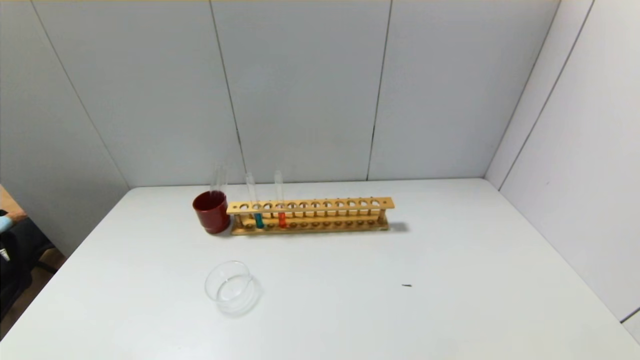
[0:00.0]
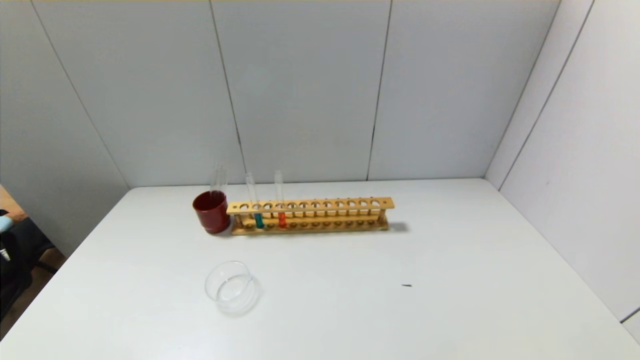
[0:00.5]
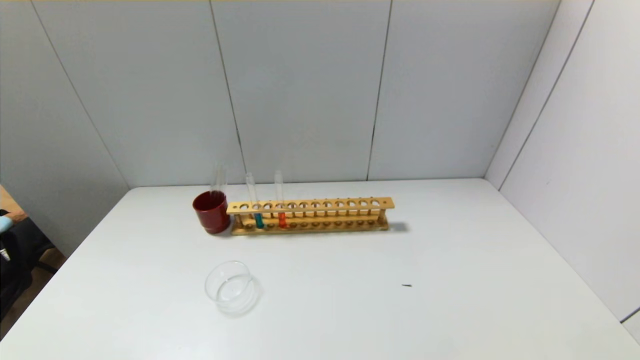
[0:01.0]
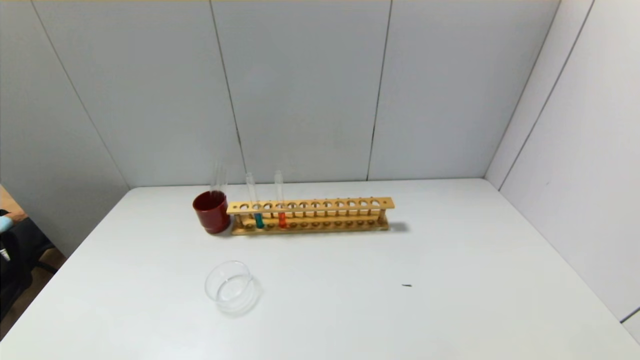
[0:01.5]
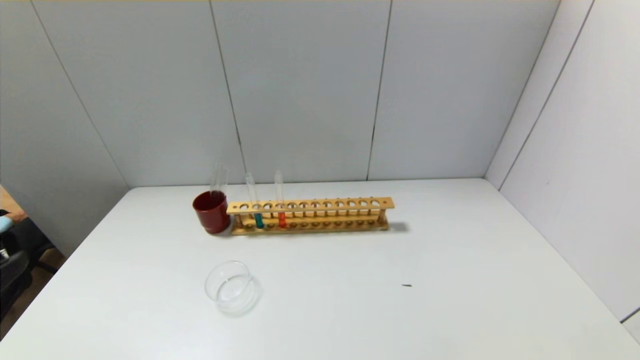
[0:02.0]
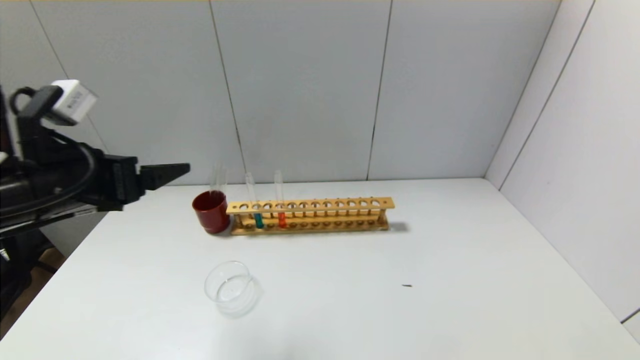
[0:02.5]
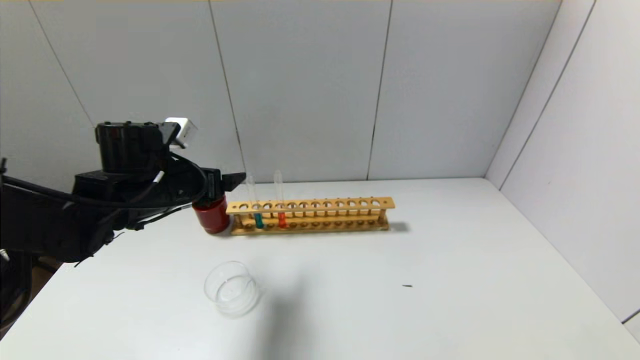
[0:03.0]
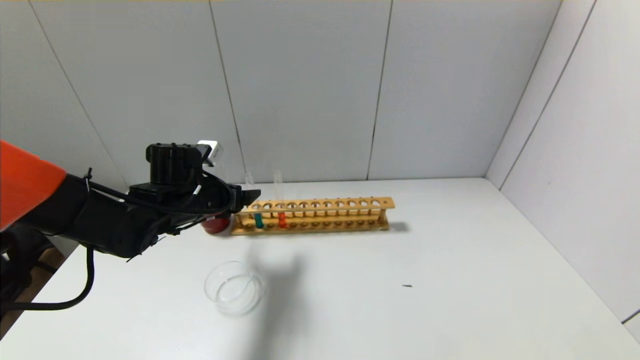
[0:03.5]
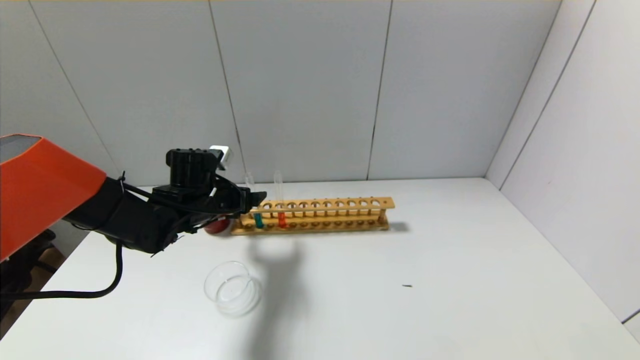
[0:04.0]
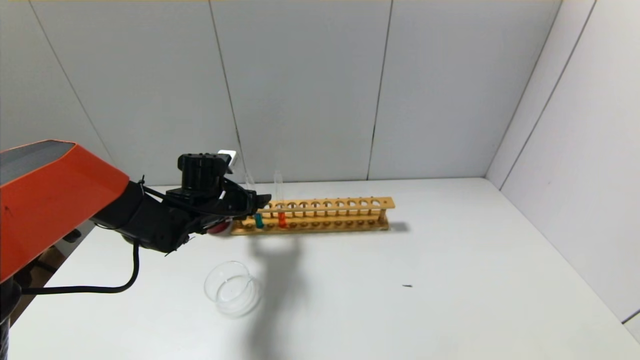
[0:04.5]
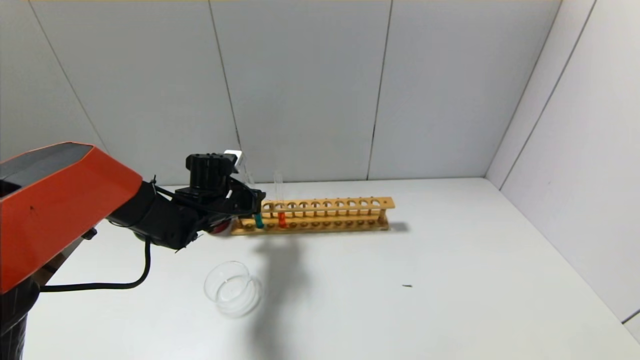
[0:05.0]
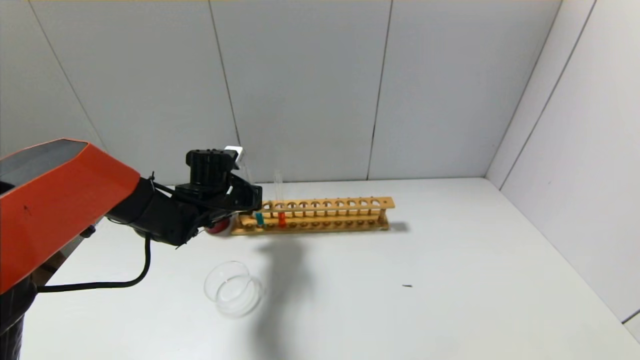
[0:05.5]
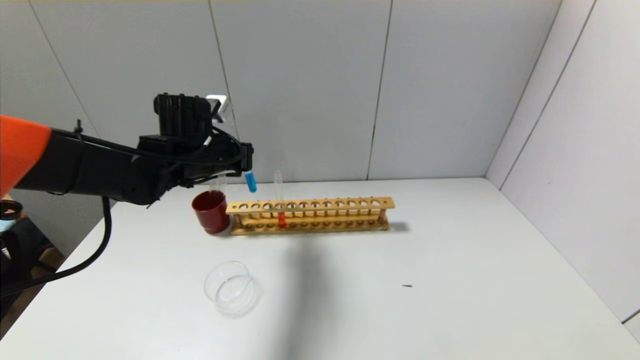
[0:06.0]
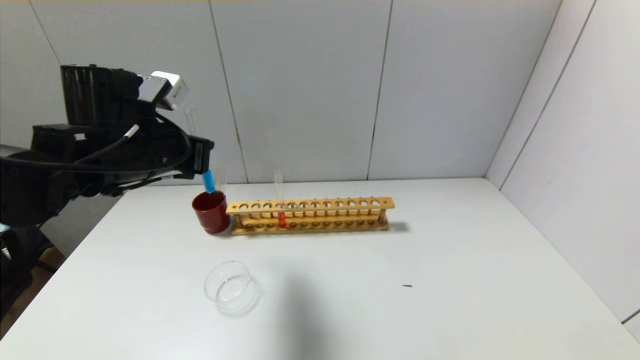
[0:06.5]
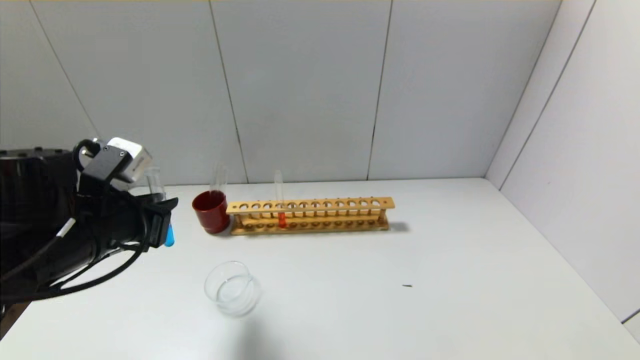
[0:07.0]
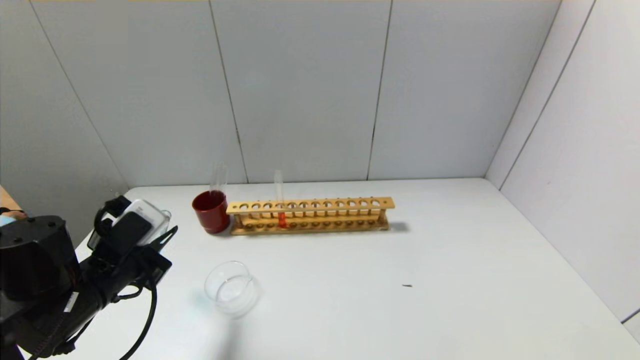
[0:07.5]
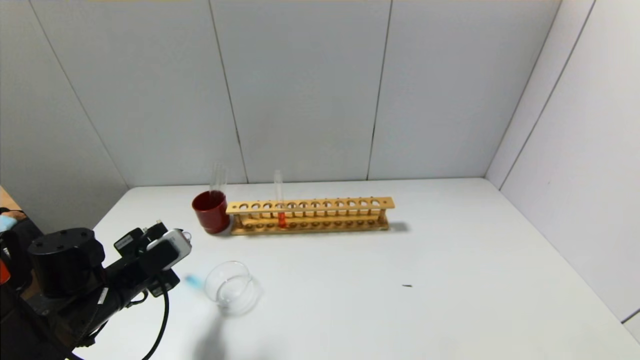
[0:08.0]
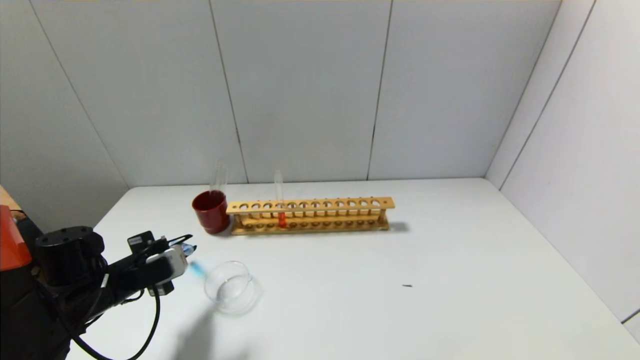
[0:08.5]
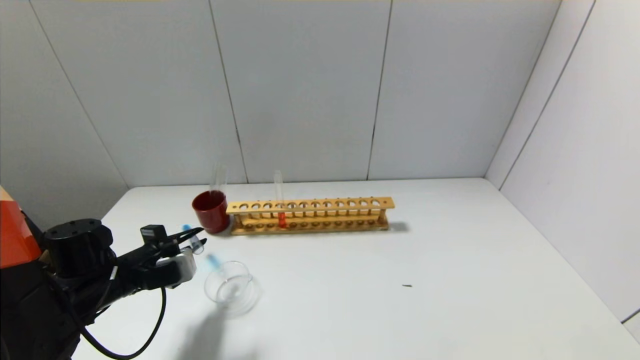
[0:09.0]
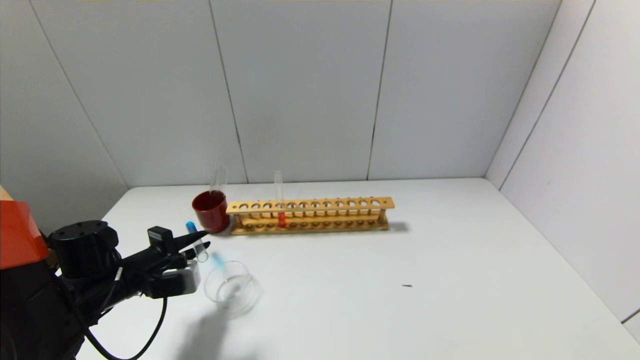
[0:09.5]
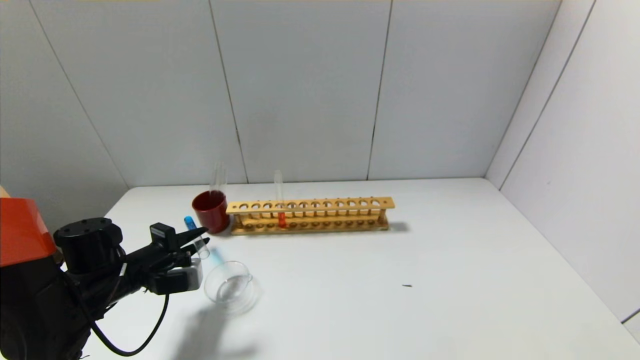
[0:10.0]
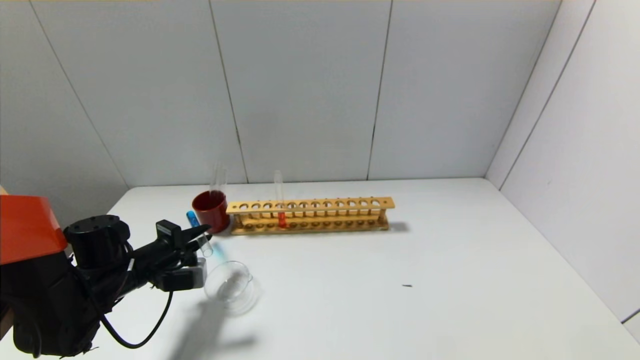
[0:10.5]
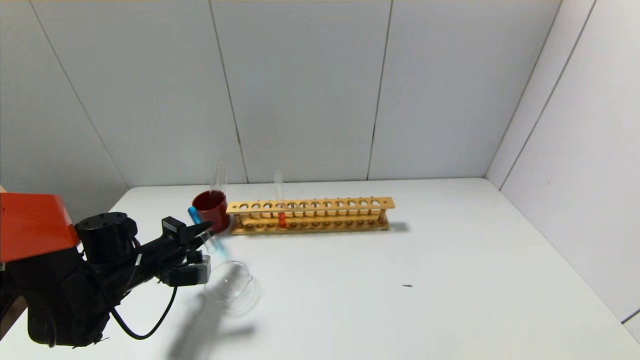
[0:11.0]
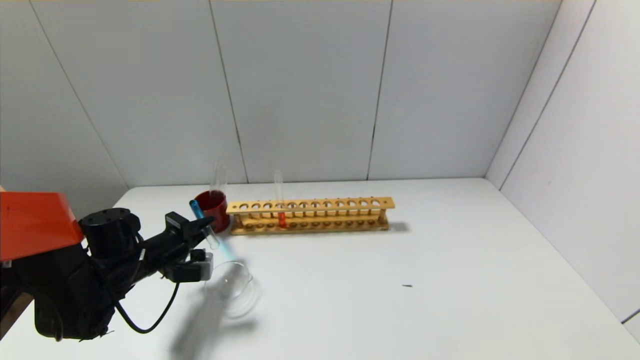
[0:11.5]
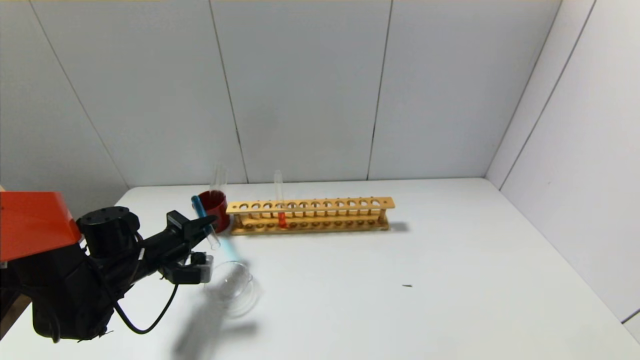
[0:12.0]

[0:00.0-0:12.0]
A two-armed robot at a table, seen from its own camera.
Step, 0:00.0 to 0:05.0: Grasp the blue reagent with the left gripper.
0:02.0 to 0:04.0: The left gripper goes about 35 cm forward and downward.
0:04.0 to 0:06.0: The left gripper shifts roughly 10 cm upward, and closes its fingers.
0:06.0 to 0:08.0: The left gripper travels backward, downward and to the left by roughly 20 cm.
0:08.0 to 0:10.0: The left gripper ends up some 5 cm from where it was.
0:10.0 to 0:12.0: The grippers make only small movements.

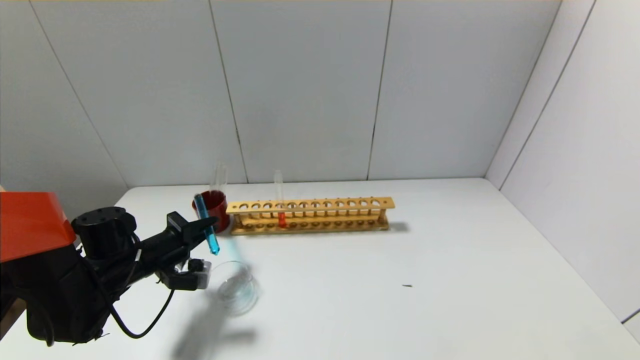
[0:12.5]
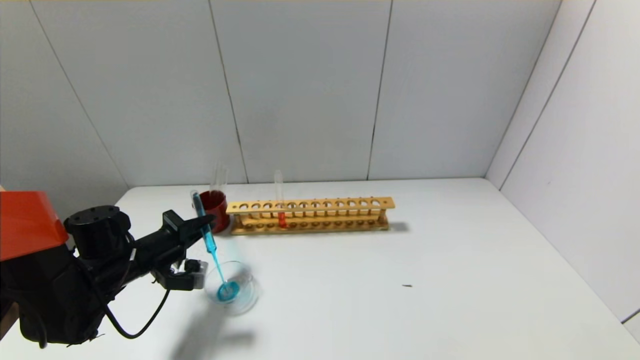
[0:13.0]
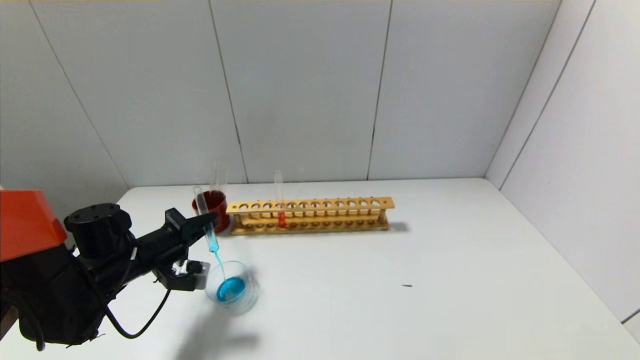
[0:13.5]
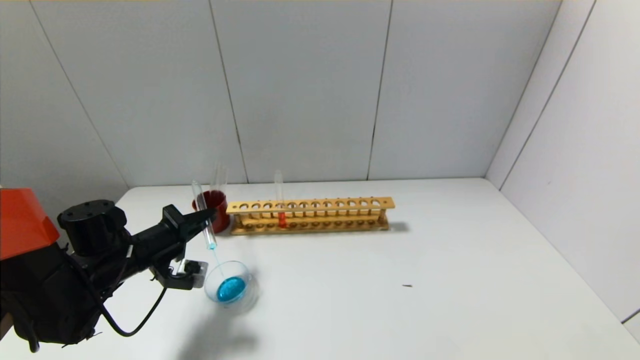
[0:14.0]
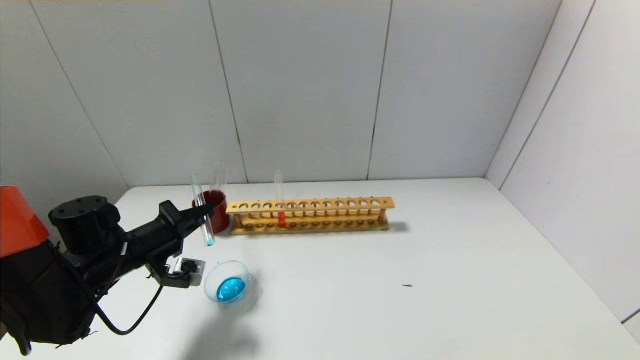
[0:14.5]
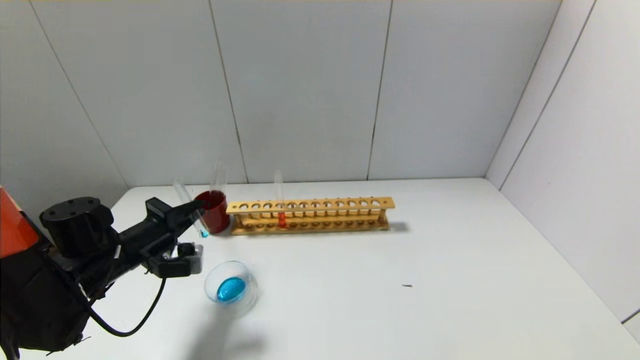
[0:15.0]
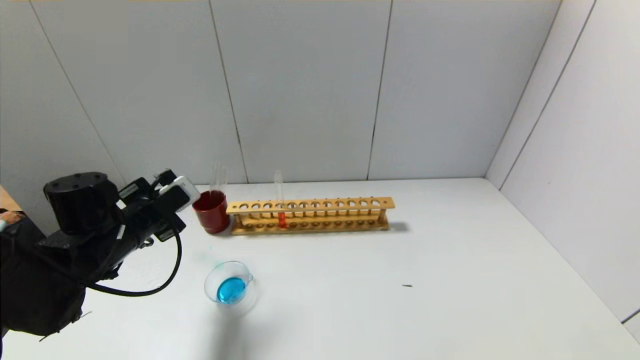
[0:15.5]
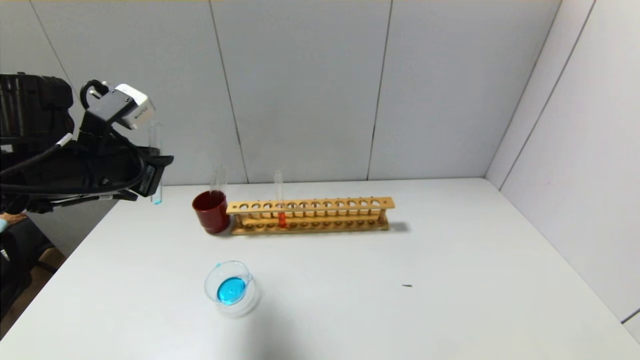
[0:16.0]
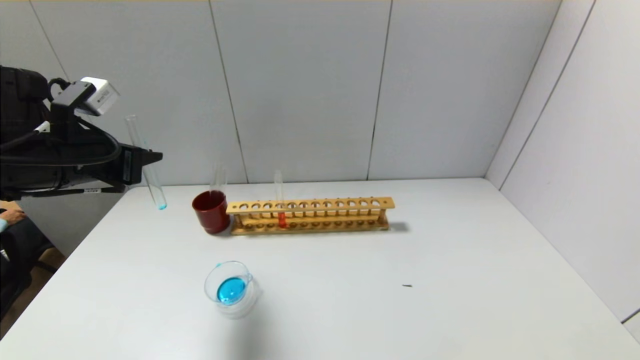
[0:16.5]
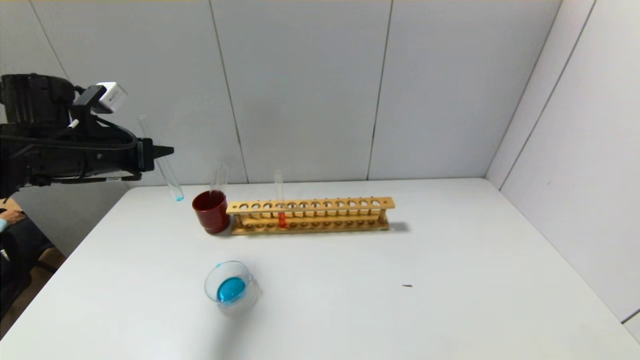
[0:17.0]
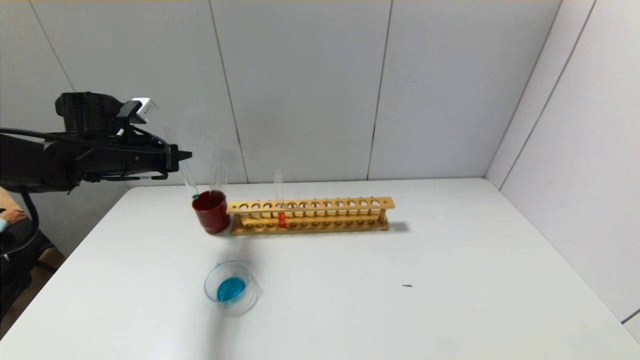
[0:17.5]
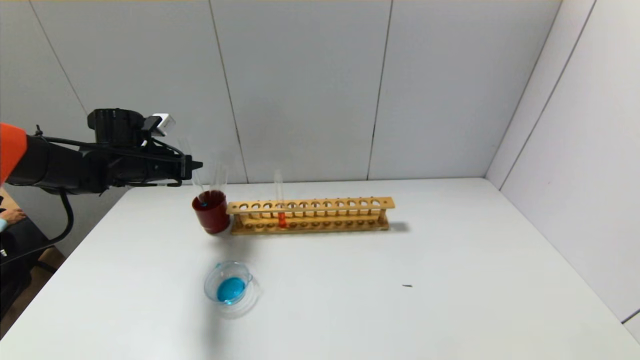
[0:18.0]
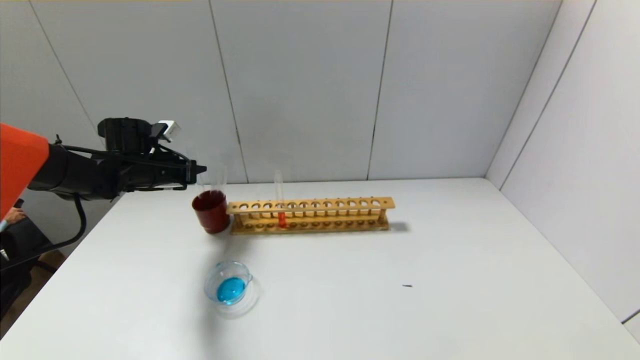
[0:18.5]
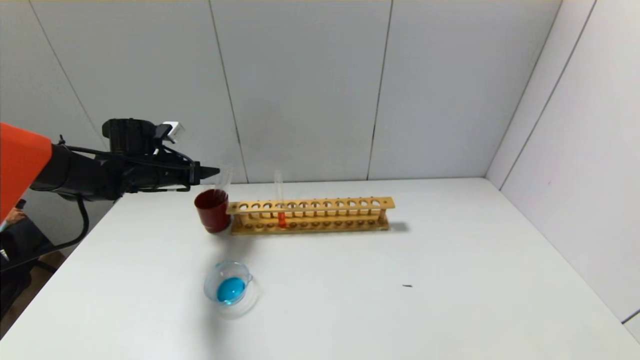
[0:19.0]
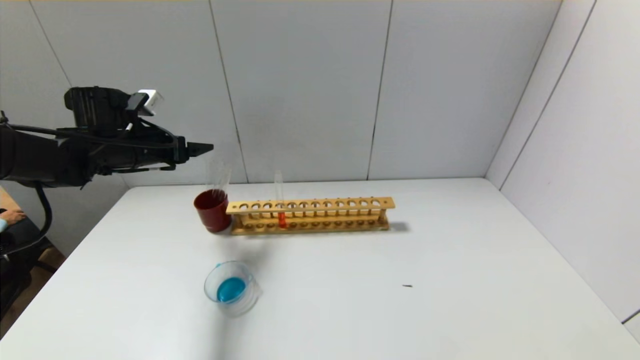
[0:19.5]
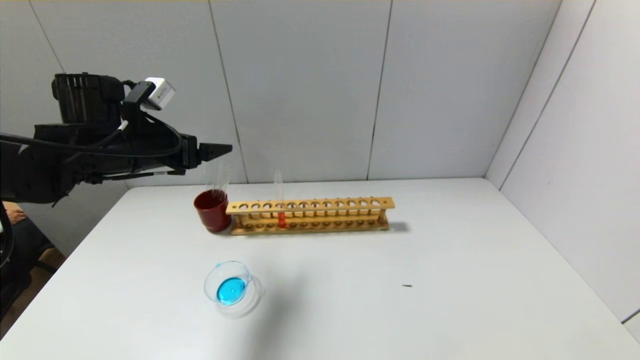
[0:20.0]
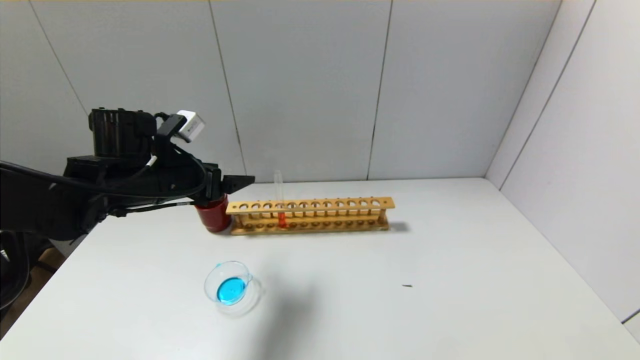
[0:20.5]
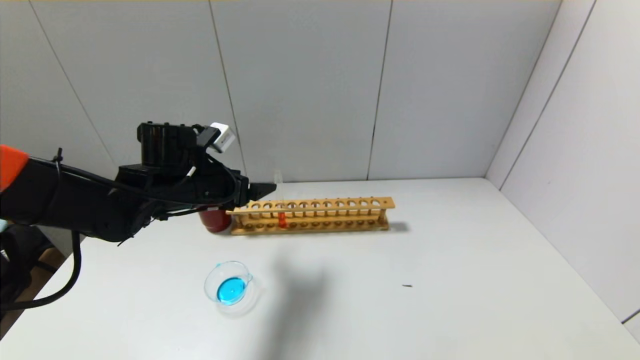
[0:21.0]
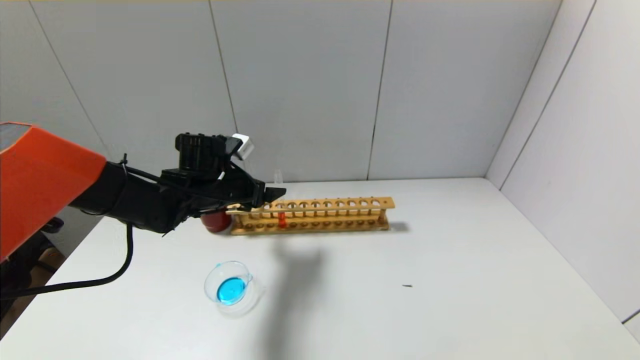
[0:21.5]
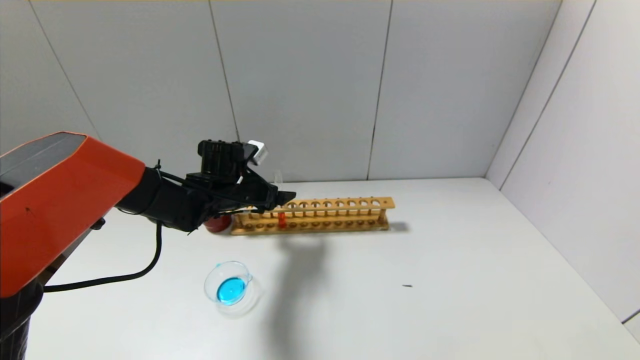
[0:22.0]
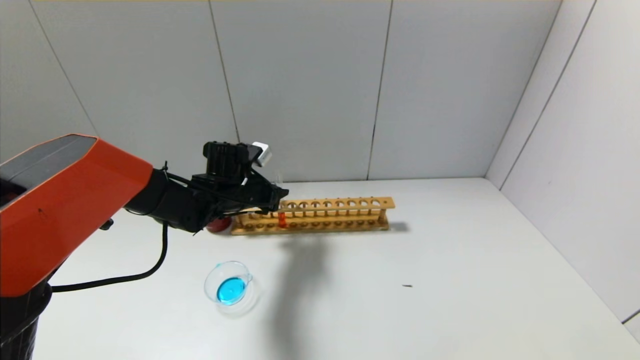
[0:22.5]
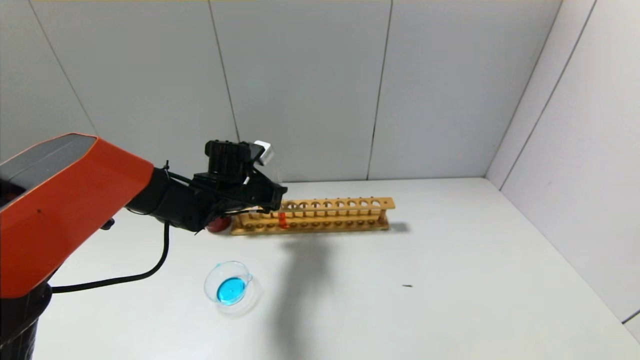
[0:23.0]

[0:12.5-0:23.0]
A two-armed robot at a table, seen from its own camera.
Step, 0:12.5 to 0:14.5: Pour the blue reagent into the graduated cylinder with the left gripper.
Step, 0:15.0 to 0:18.5: Place the test tube into the brown cup with the left gripper.
Step, 0:19.0 to 0:22.5: Grasp the red reagent with the left gripper.
0:12.5 to 0:14.5: The grippers stay close to where they were, moving slightly.
0:14.5 to 0:16.5: The left gripper goes about 15 cm upward.
0:16.5 to 0:19.0: The left gripper shifts roughly 20 cm forward and downward, and opens its fingers.
0:19.0 to 0:21.0: The left gripper heads to the right and backward, covering about 15 cm.
0:21.0 to 0:23.0: The left gripper travels forward by approximately 5 cm, and closes its fingers.
